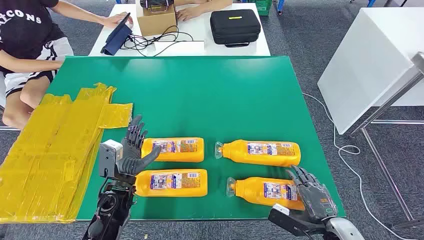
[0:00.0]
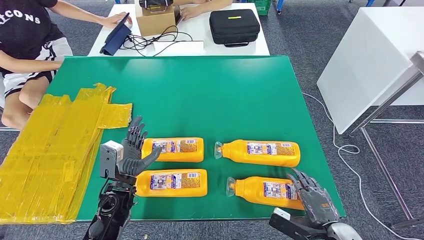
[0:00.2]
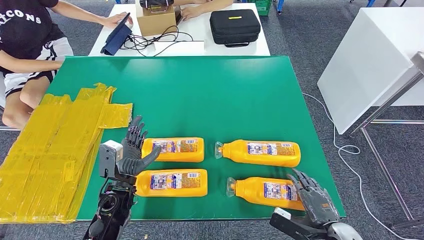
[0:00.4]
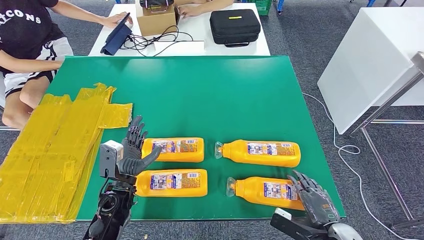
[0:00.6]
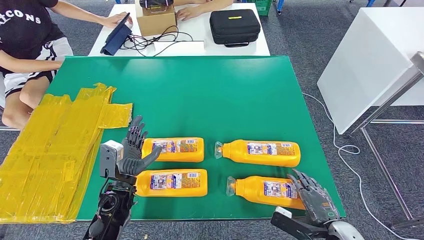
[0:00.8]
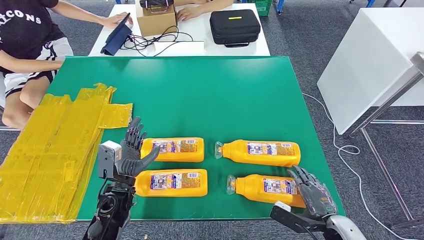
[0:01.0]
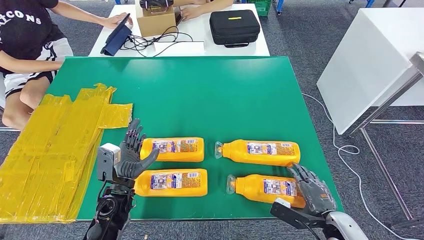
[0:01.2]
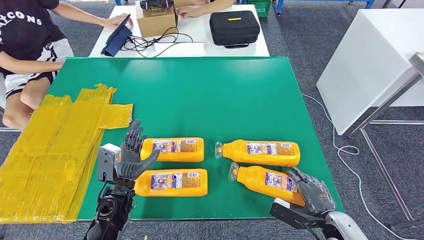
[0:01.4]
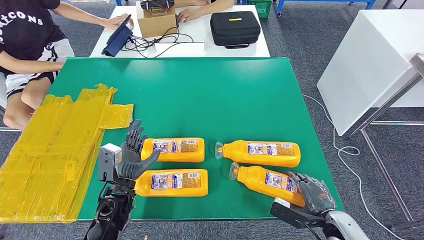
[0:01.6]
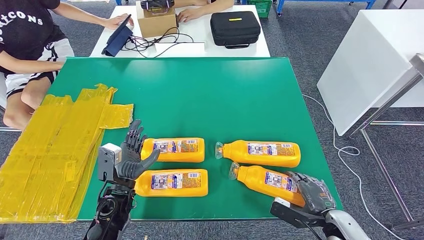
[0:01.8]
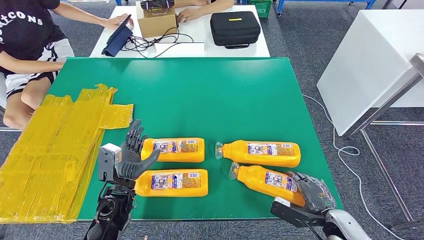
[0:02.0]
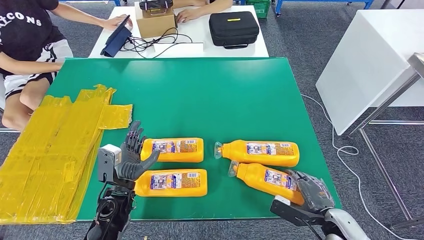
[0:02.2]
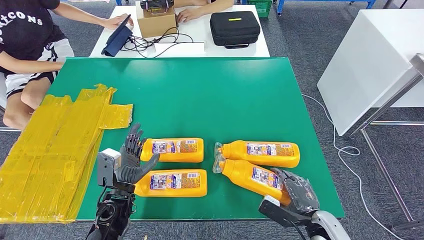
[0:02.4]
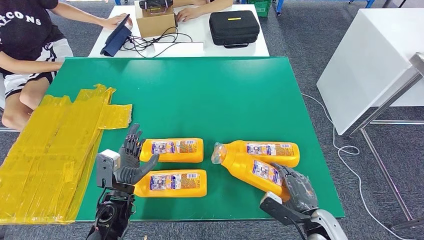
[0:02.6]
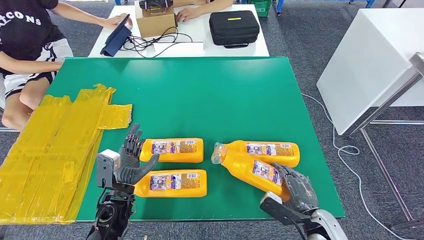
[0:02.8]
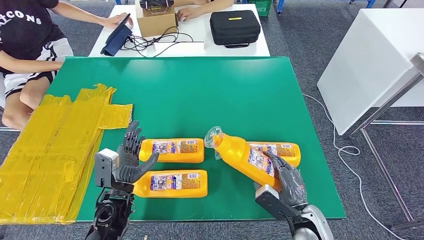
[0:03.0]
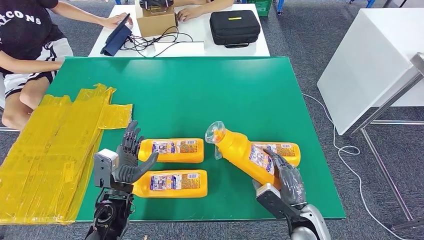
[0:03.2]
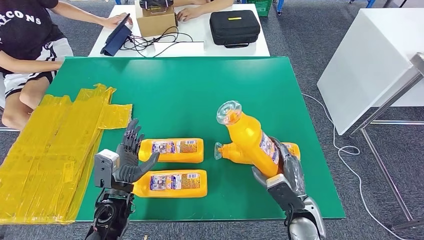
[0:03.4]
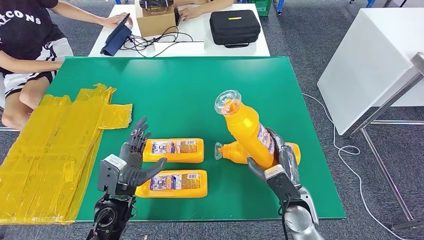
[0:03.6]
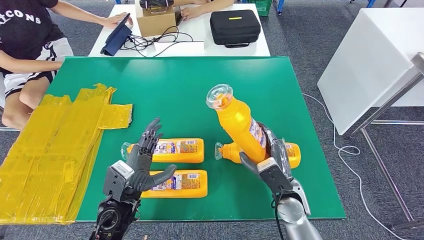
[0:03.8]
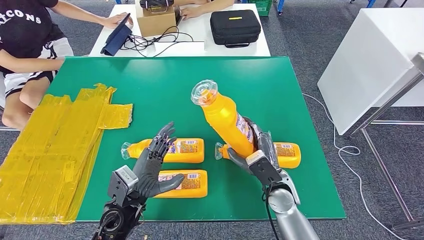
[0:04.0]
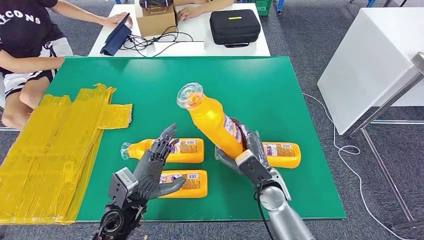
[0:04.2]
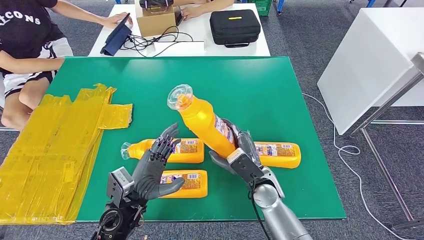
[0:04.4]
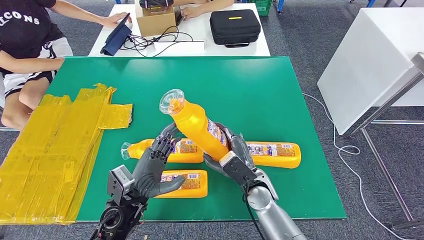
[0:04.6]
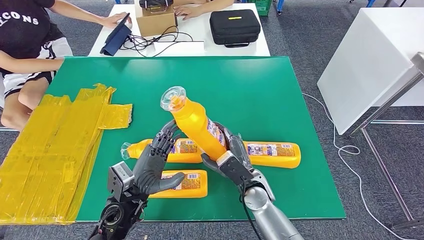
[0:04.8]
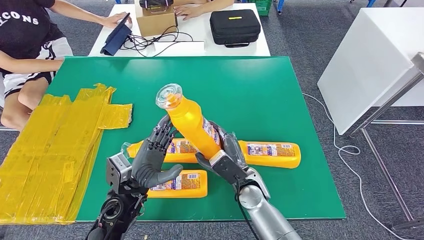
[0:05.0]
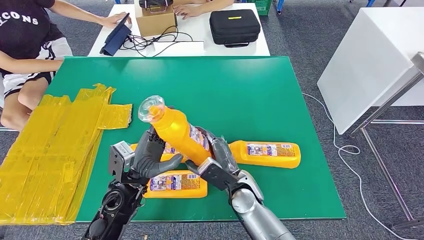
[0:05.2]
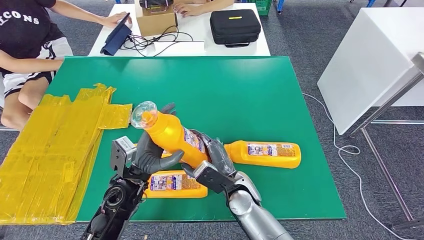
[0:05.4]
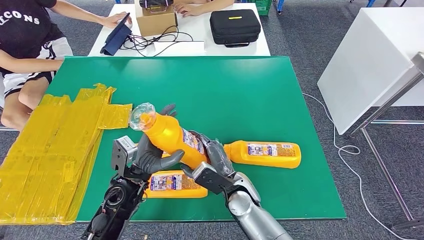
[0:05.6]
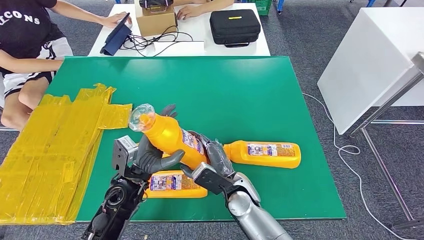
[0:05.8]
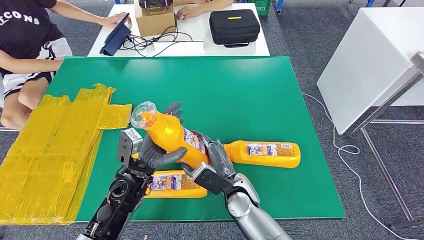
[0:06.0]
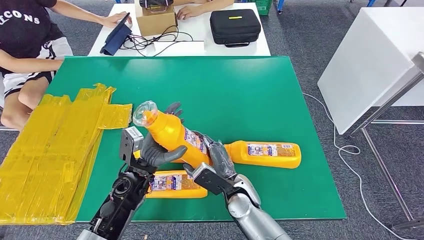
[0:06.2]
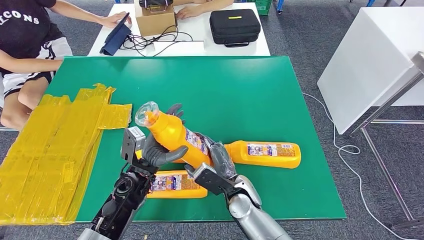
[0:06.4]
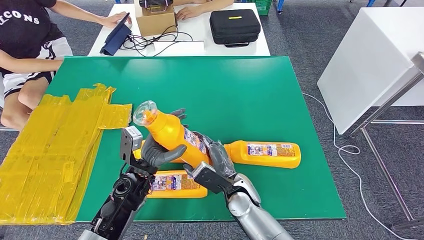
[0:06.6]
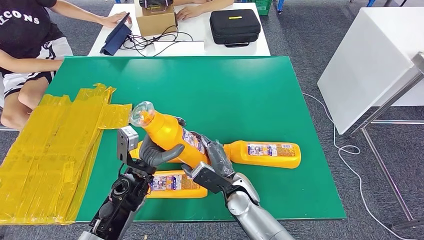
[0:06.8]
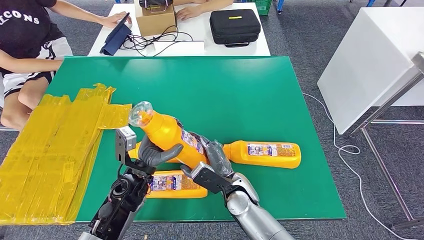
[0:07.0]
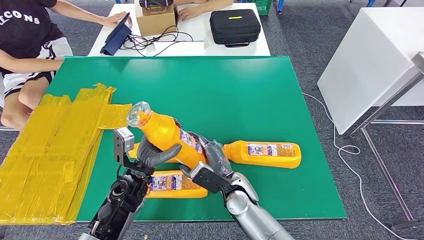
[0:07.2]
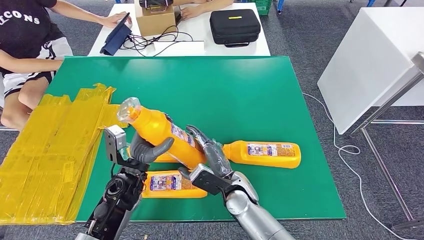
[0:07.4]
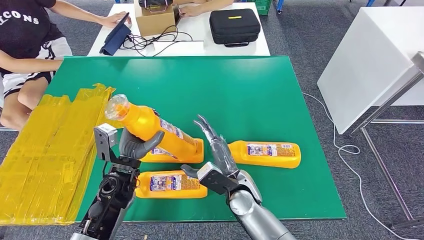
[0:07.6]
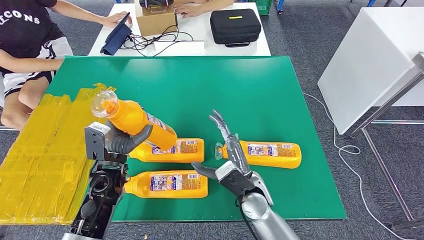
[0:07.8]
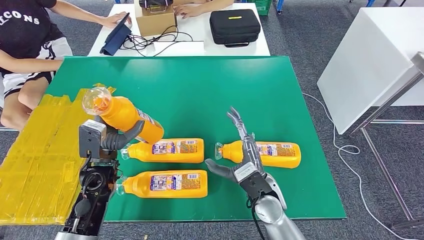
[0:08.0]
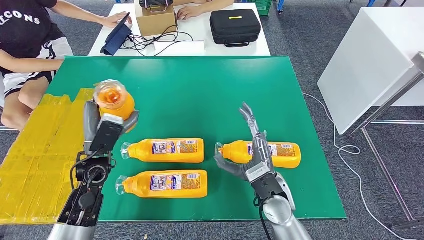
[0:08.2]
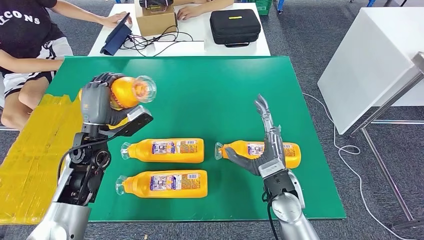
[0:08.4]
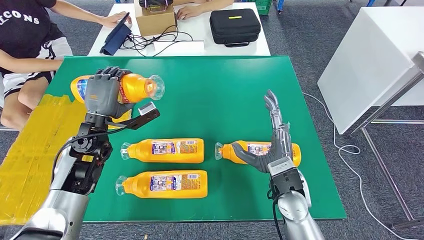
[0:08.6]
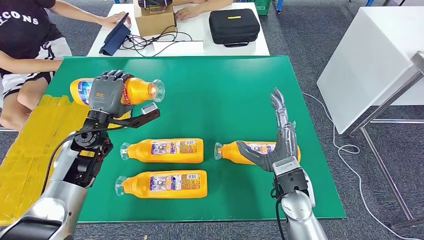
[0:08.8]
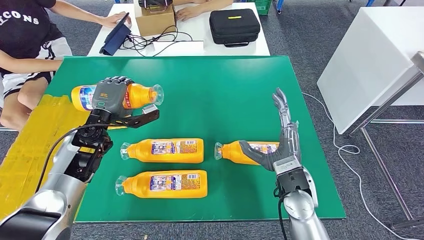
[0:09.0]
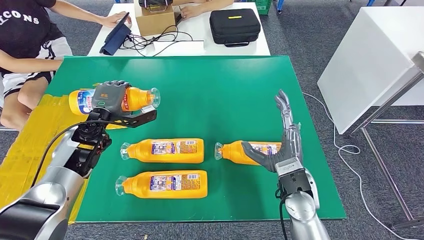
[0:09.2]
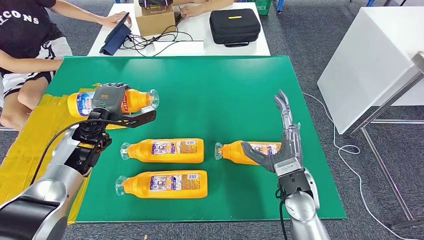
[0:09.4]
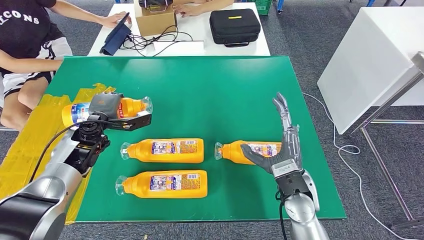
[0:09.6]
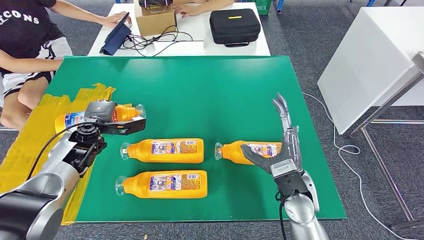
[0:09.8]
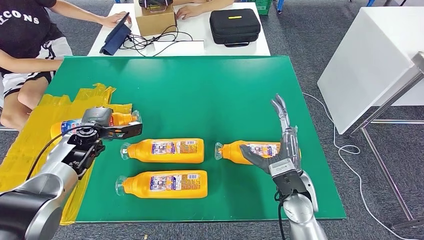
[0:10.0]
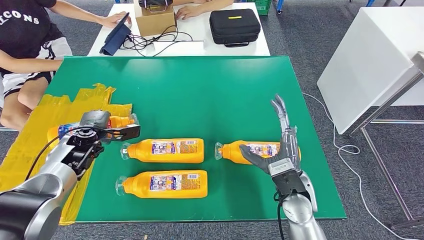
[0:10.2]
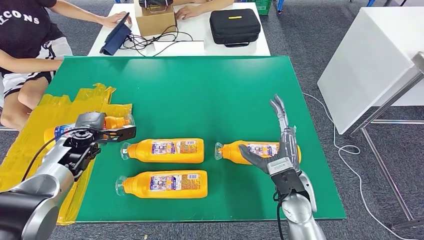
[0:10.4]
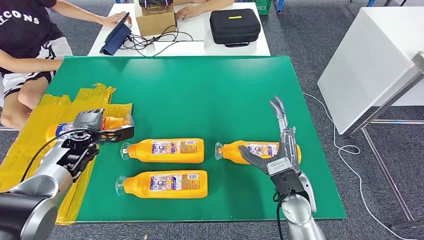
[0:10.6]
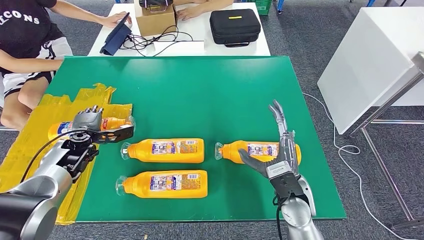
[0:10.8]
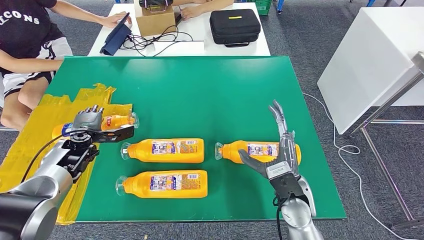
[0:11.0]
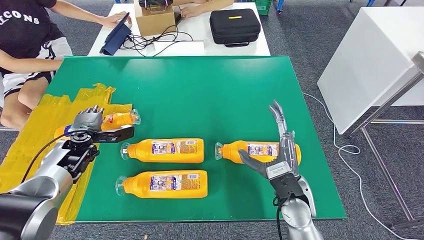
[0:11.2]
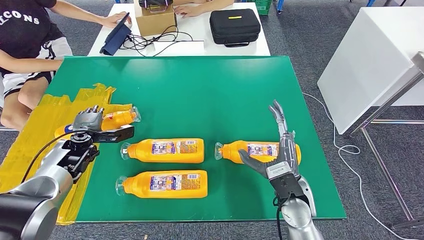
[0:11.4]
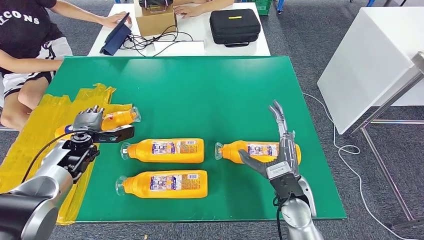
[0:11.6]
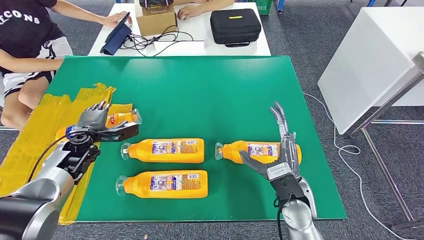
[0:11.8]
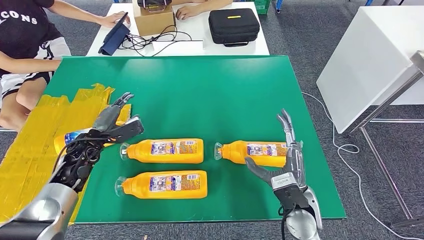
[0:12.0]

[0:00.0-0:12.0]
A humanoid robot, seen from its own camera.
Step, 0.0 to 4.0 s: Take the bottle from the table.
Step, 4.2 to 11.8 s: Flip the bottle to face forward.
1.6 to 3.0 s: The right hand goes roughly 5 cm to the left.
3.0 to 4.4 s: The left hand ends up approximately 5 cm from where it was; the right hand goes approximately 15 cm to the left and forward.
4.4 to 6.0 s: The right hand is displaced to the left by approximately 5 cm. Meanwhile the left hand moves forward, approximately 5 cm.
6.0 to 7.6 s: The hands move only a little.
9.0 to 10.4 s: The left hand heads downward and to the left, covering some 10 cm.

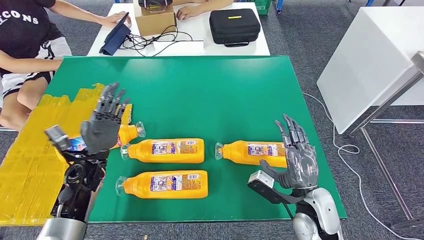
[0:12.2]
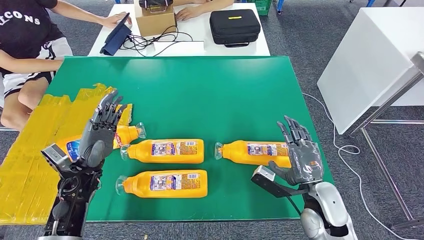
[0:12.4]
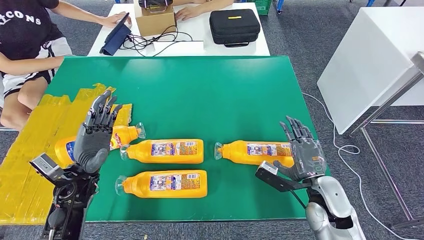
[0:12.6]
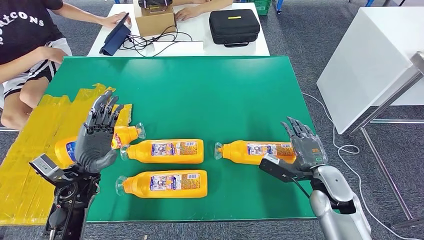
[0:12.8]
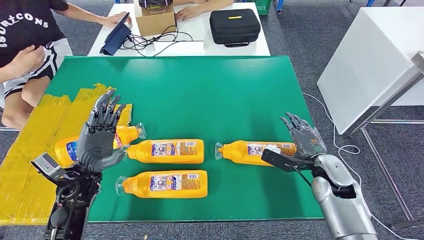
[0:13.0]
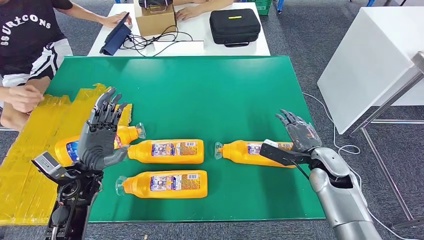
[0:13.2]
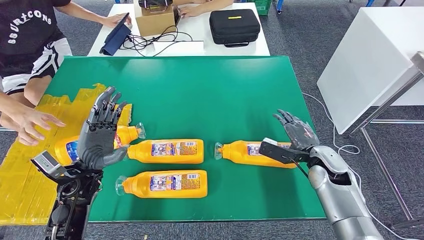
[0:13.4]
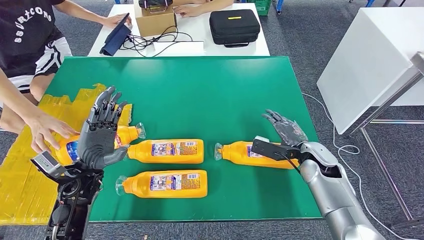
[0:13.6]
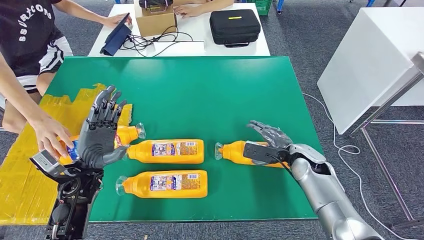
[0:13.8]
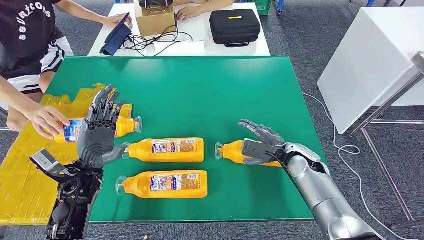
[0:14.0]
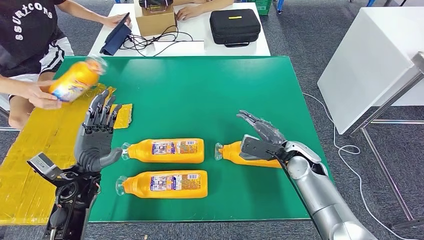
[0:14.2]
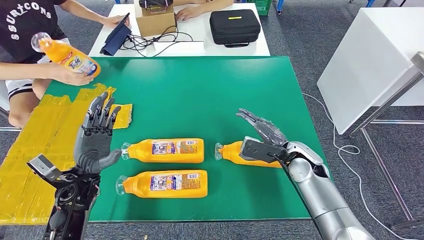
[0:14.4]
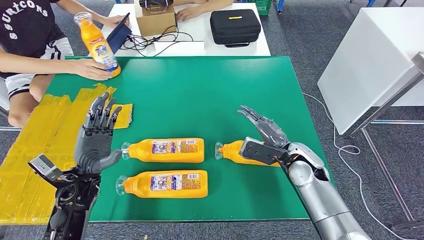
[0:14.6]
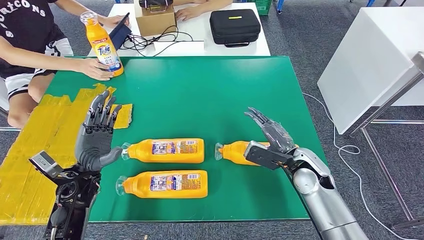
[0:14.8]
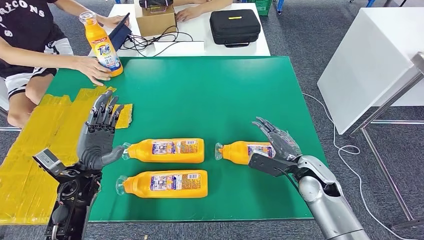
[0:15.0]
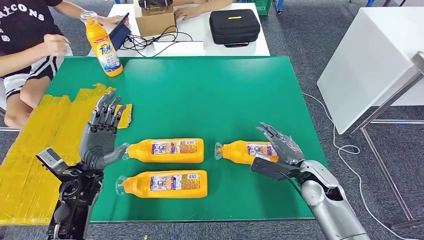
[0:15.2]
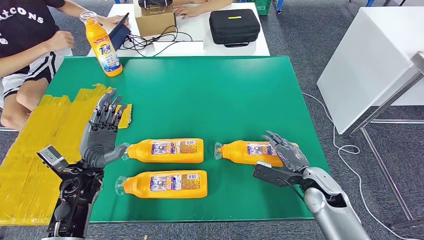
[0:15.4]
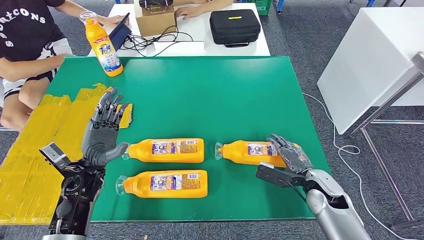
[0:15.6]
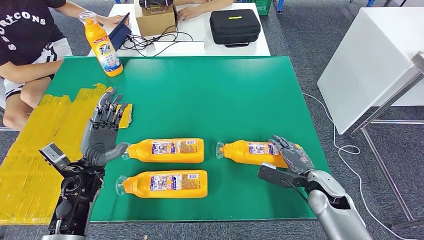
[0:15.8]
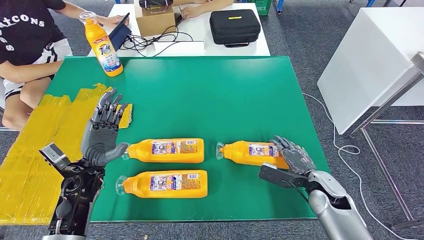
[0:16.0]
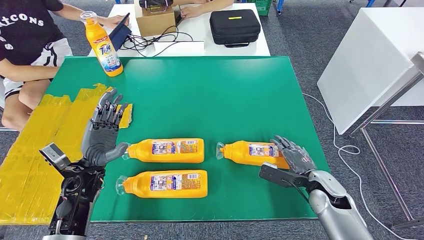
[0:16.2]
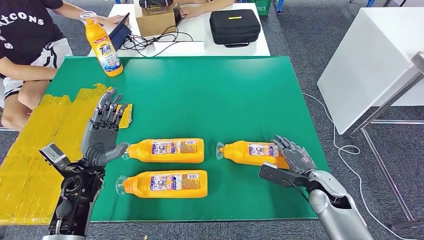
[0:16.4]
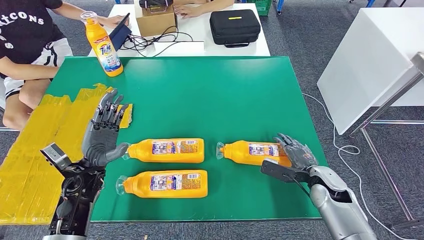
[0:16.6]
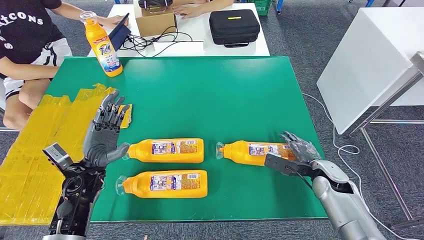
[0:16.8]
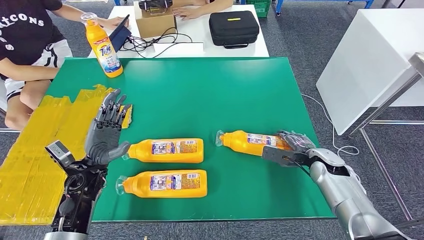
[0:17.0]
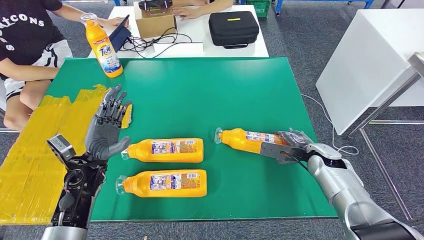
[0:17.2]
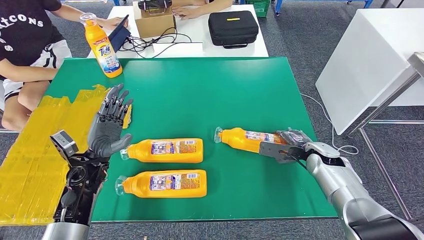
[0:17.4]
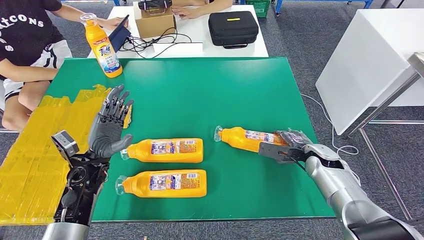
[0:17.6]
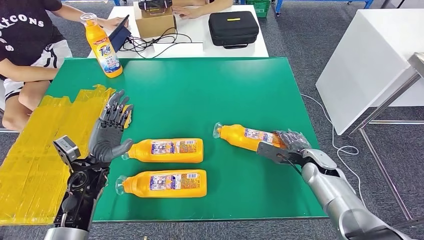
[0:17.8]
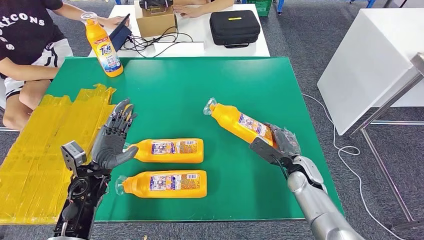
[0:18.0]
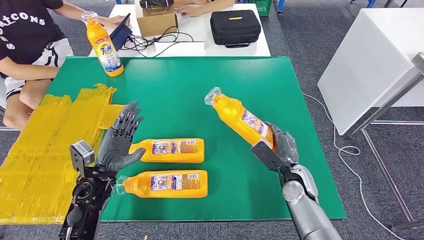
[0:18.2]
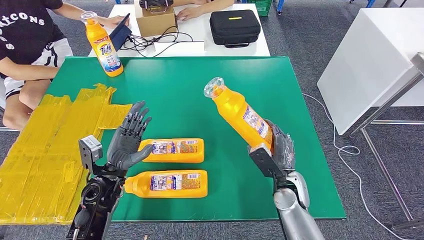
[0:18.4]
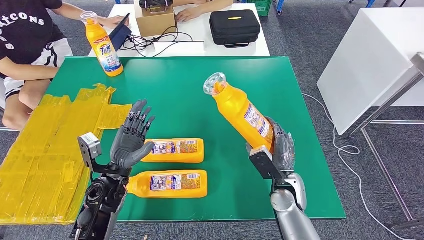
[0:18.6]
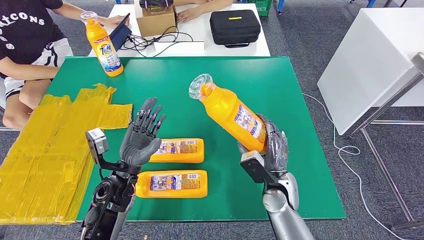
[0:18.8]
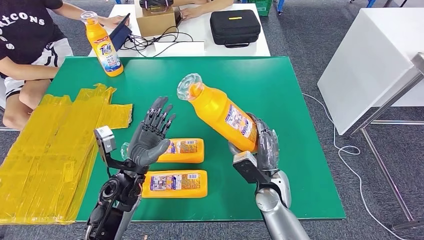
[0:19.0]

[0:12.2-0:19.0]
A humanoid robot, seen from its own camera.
12.2 to 13.6 s: The left hand changes place by some 5 cm. Meanwhile the right hand goes some 15 cm forward.
13.6 to 15.0 s: The right hand ends up about 5 cm from where it was.
15.0 to 16.2 s: The right hand shifts by roughly 5 cm.
16.2 to 17.6 s: The right hand moves forward, approximately 10 cm.
